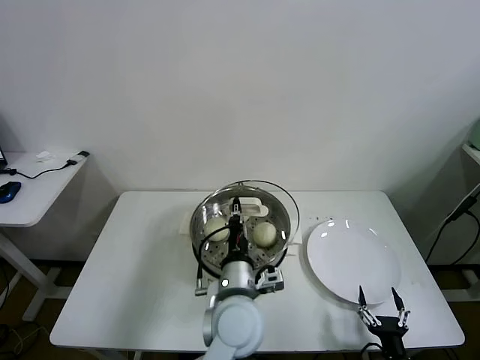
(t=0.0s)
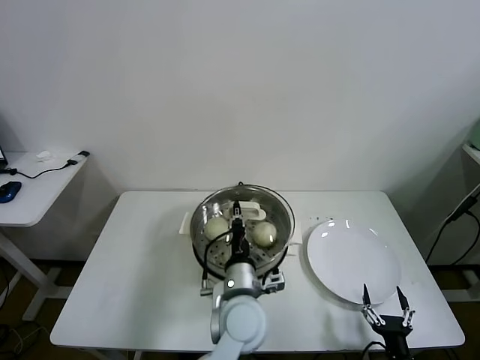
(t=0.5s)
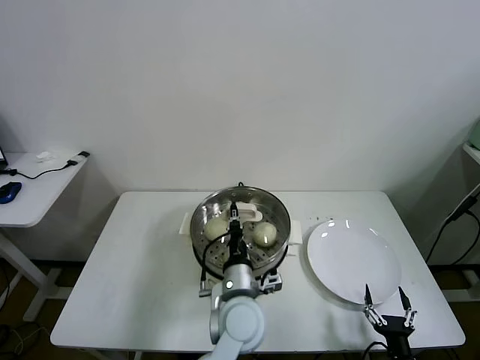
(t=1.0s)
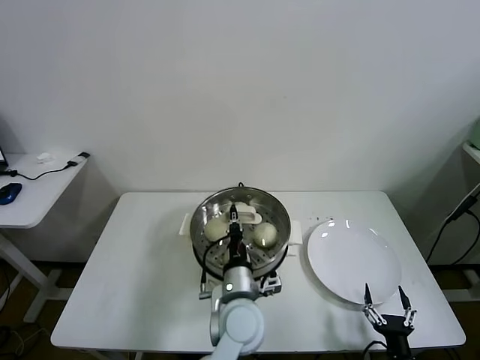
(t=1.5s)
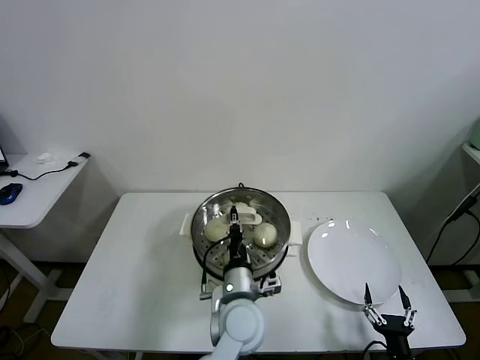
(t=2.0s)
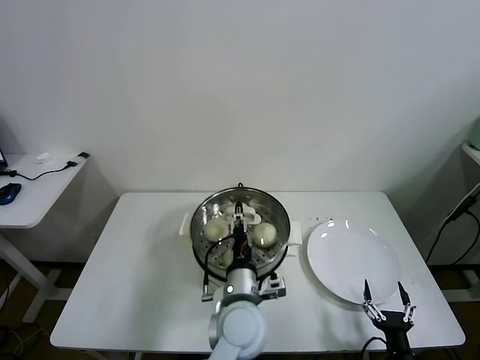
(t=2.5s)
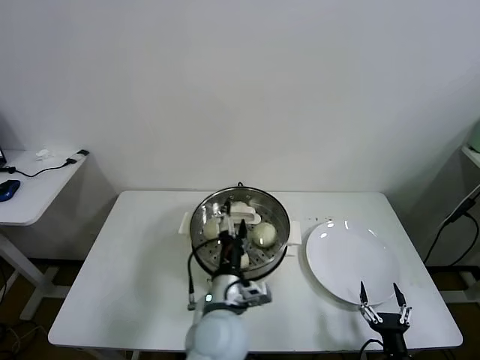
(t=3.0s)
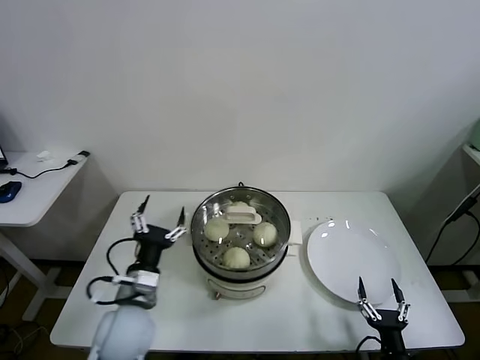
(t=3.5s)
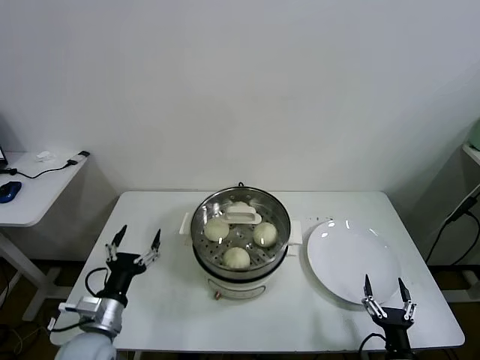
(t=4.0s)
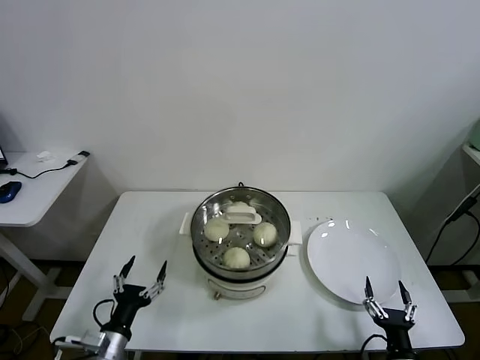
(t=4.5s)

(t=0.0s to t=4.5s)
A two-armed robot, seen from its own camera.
Task of the whole recording: take steamed baozi put them in steamer.
Step, t=0.0s - t=2.5s: Place the pot lid on the steamer with left gripper.
t=0.0s - t=2.0s: The left gripper moves downward, approximately 5 cm.
t=2.0s - t=4.5s: The left gripper shifts approximately 30 cm to the left, and opens its fingers.

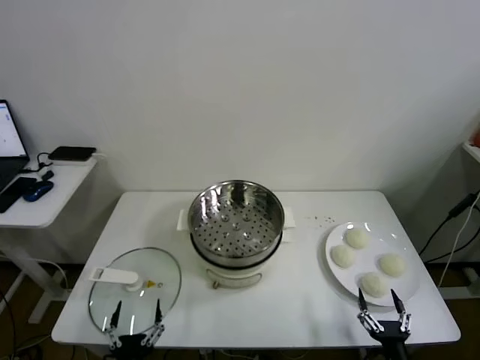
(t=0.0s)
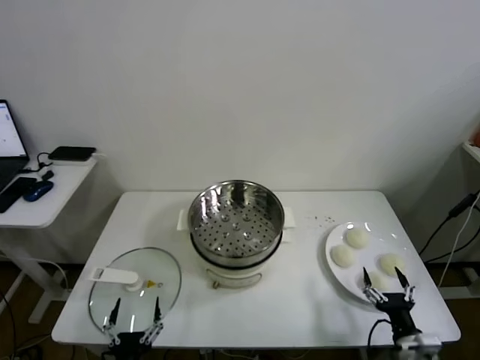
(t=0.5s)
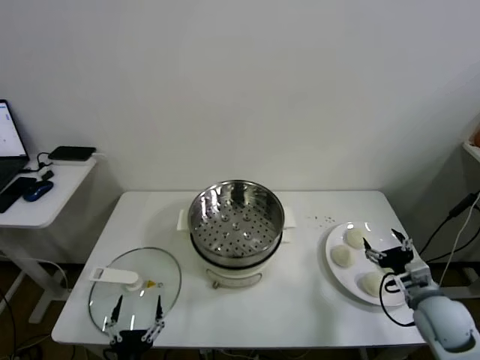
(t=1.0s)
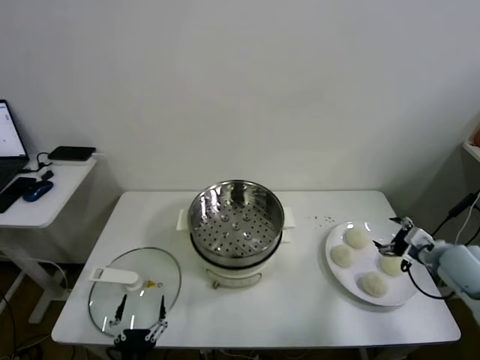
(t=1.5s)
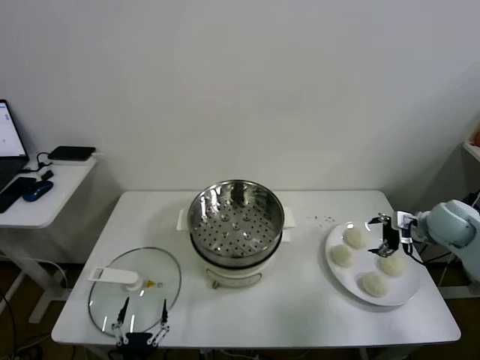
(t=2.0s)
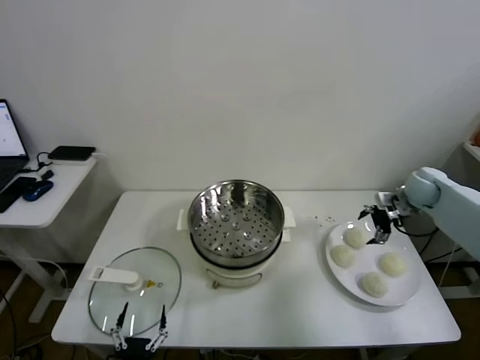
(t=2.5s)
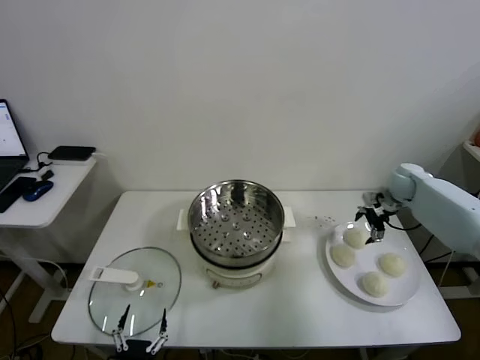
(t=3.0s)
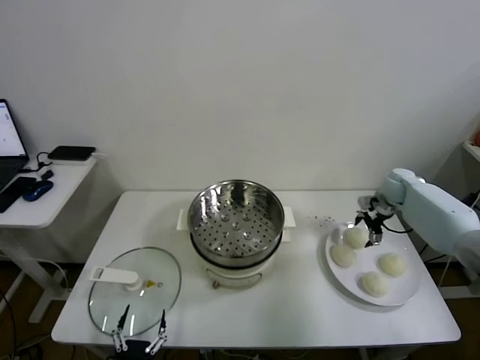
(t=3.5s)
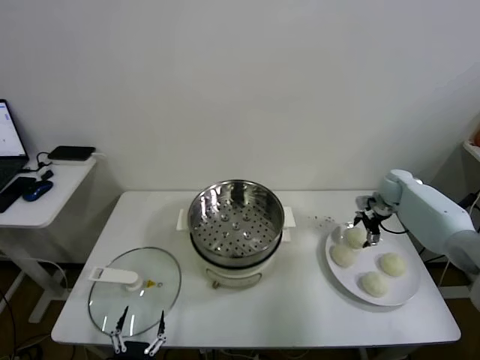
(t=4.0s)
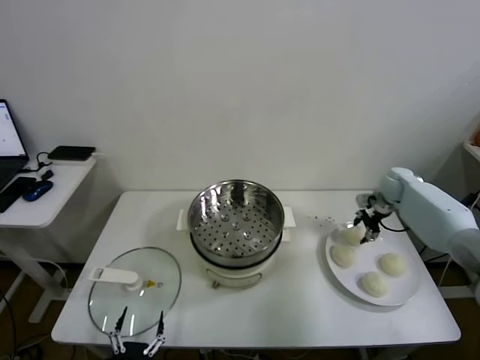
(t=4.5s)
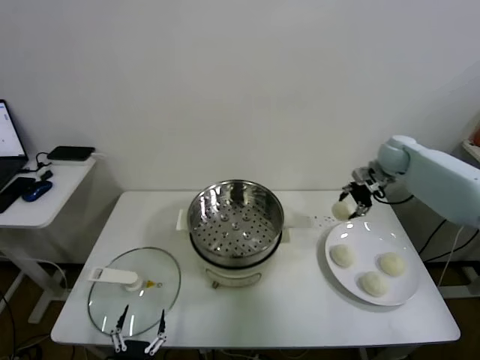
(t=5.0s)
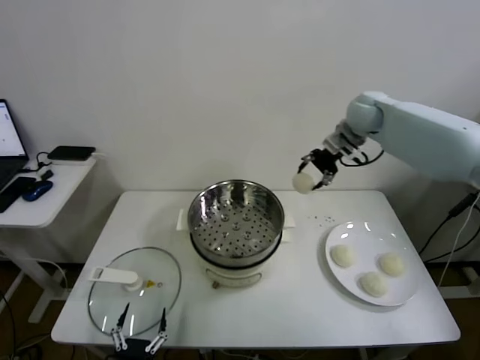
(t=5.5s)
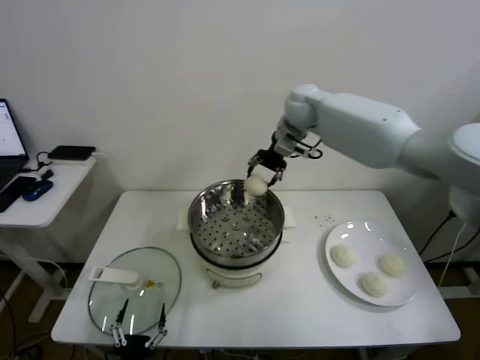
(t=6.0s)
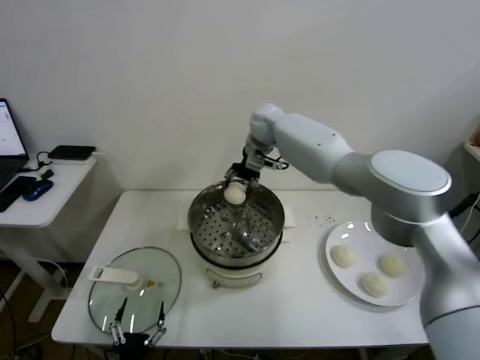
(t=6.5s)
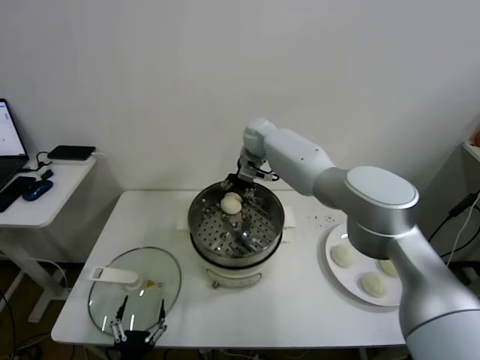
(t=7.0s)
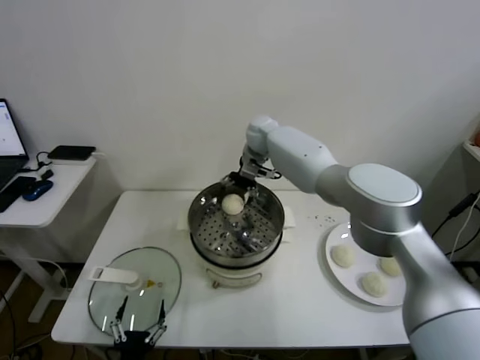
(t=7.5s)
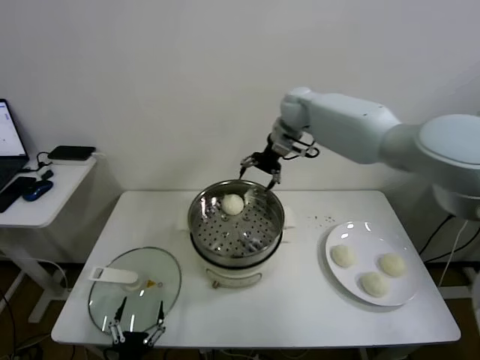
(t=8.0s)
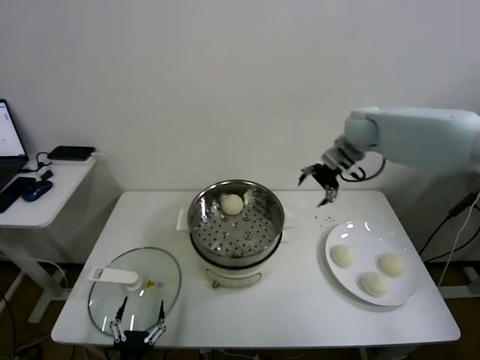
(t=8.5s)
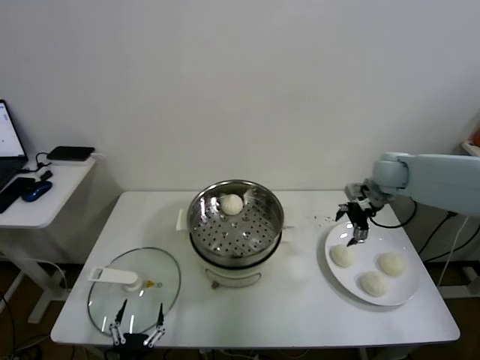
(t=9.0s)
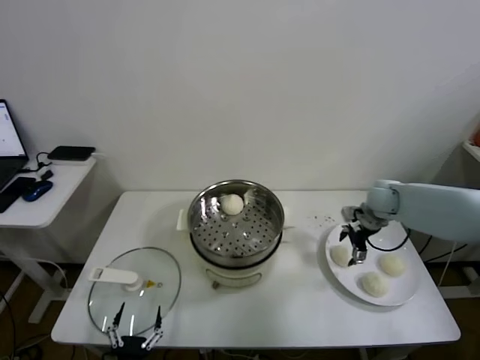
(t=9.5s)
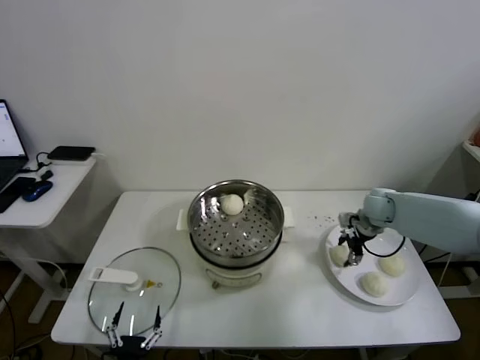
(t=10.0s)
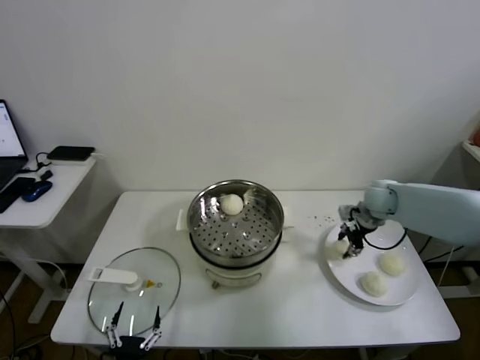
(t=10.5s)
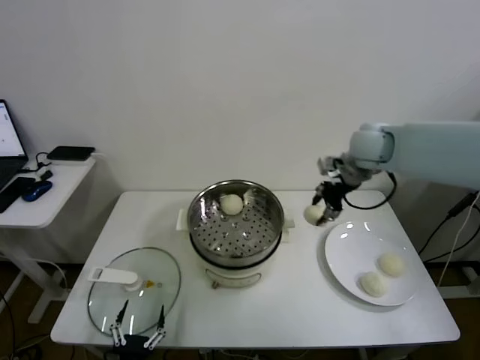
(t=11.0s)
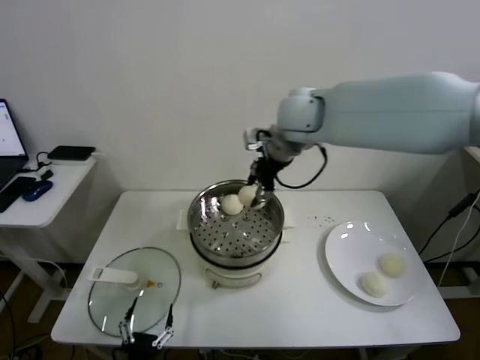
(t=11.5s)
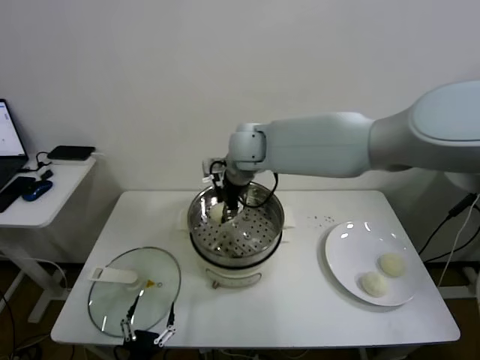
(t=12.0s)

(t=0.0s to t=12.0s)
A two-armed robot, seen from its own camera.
Task of the whole recording: take steamed baozi put them in steamer.
Step, t=0.0s - t=4.0s: Grasp the baozi in the plate with right gripper.
Step, t=4.5s - t=7.5s: Place the baozi on the steamer with right gripper.
Step, t=8.0s - t=10.0s: Grasp the baozi in the plate with right gripper.
t=2.0s - t=4.0s: The right gripper heads forward, covering approximately 15 cm.
t=4.0s - t=6.0s: The right gripper moves to the left and upward, about 35 cm, and closes.
t=6.0s - t=8.0s: The right gripper goes downward and returns, roughly 10 cm each way, and opens up.
t=8.0s - t=10.0s: The right gripper shifts some 35 cm to the right, downward and backward, and closes its fingers.
t=10.0s - t=12.0s: The right gripper goes roughly 40 cm to the left and upward, and closes up.

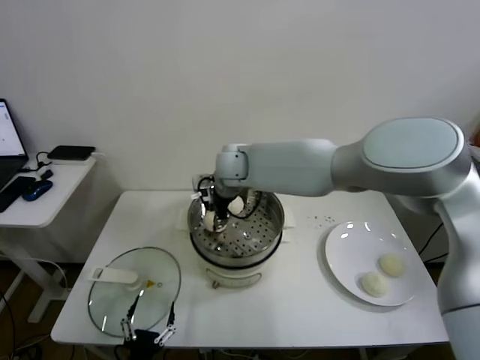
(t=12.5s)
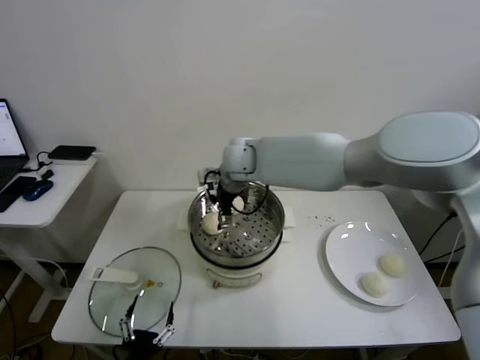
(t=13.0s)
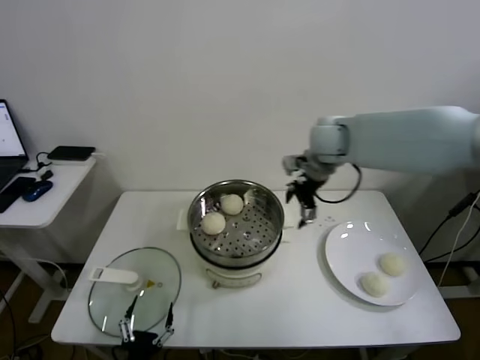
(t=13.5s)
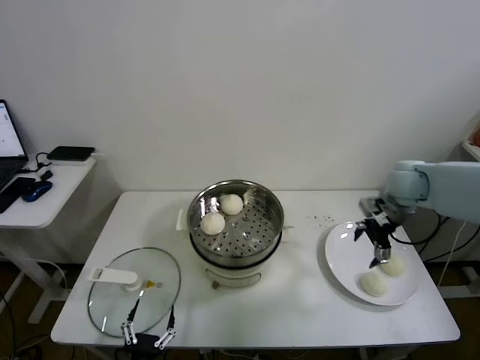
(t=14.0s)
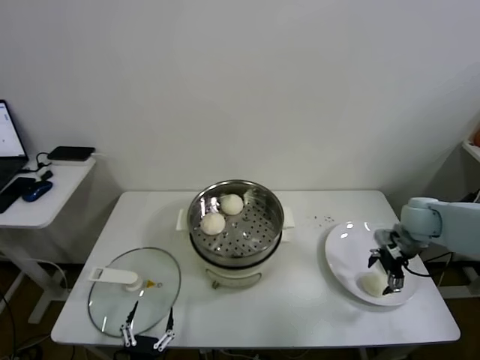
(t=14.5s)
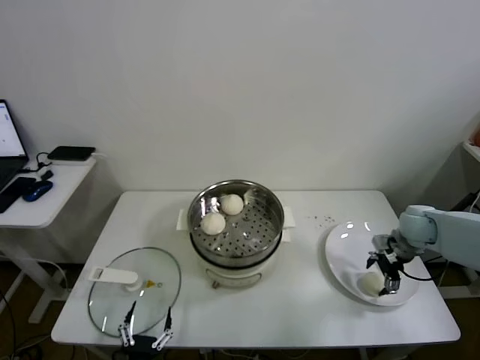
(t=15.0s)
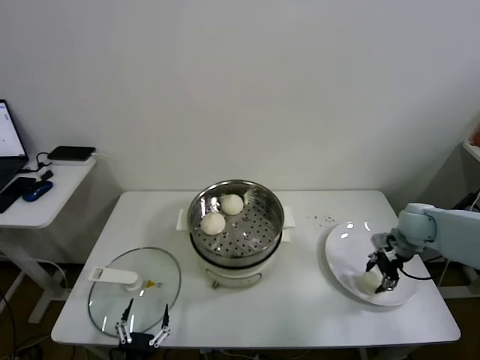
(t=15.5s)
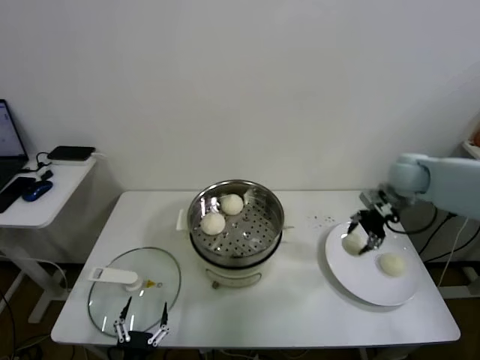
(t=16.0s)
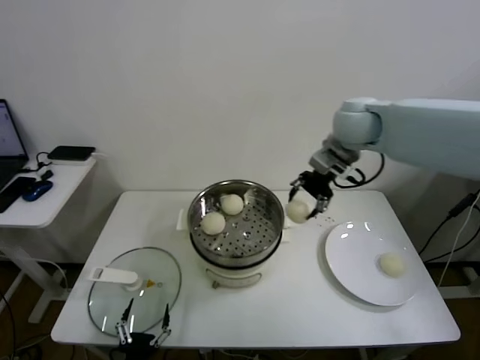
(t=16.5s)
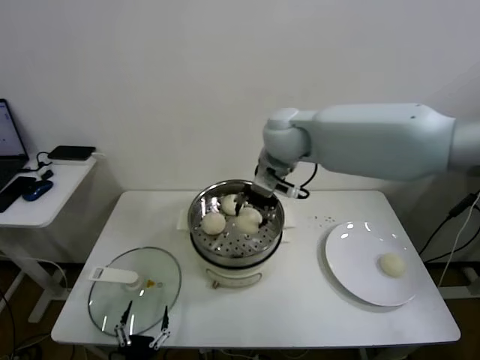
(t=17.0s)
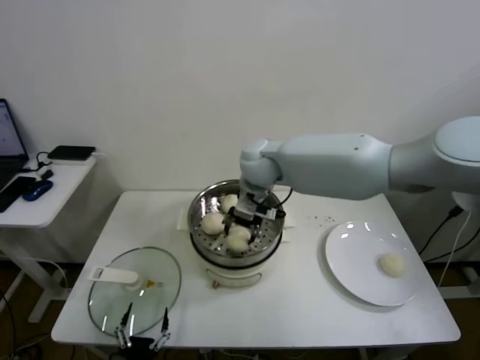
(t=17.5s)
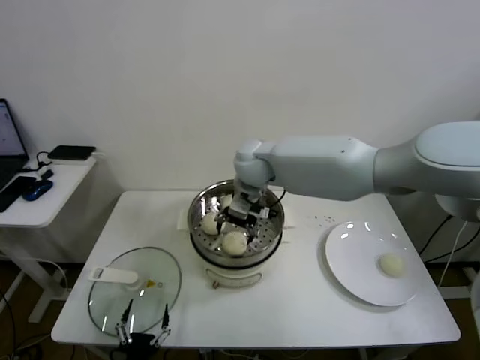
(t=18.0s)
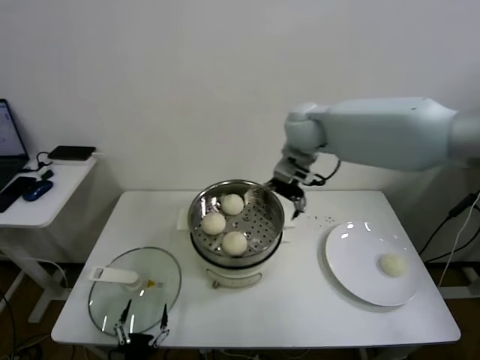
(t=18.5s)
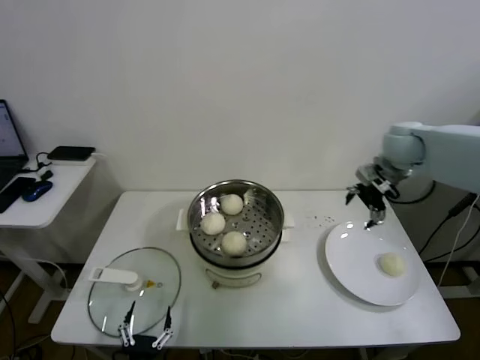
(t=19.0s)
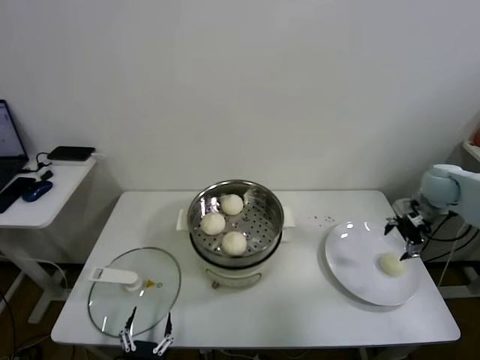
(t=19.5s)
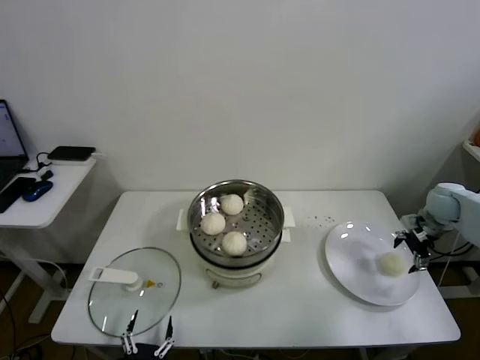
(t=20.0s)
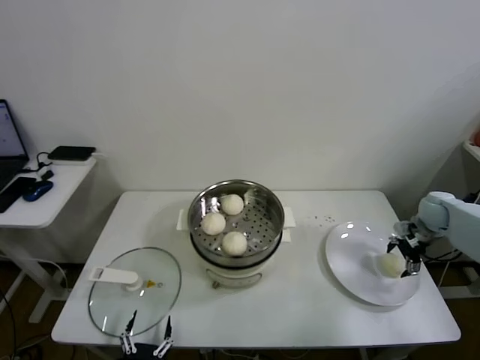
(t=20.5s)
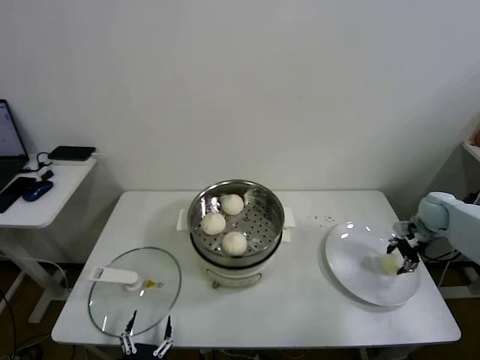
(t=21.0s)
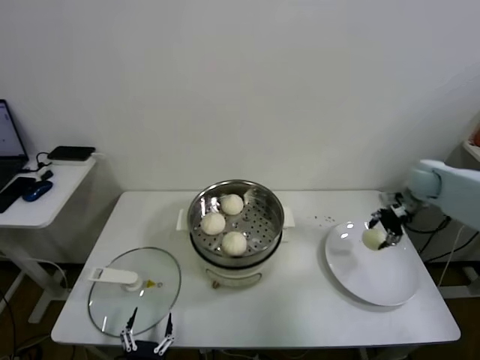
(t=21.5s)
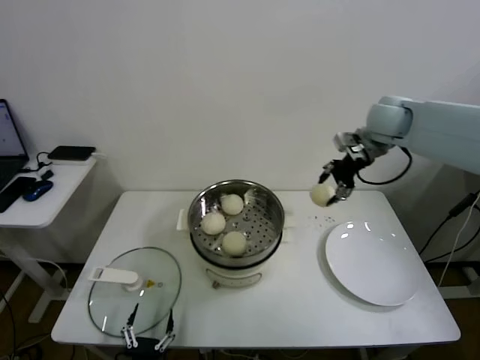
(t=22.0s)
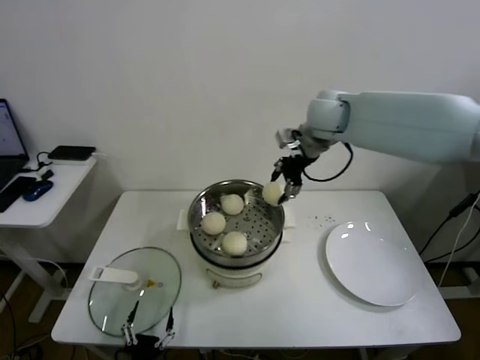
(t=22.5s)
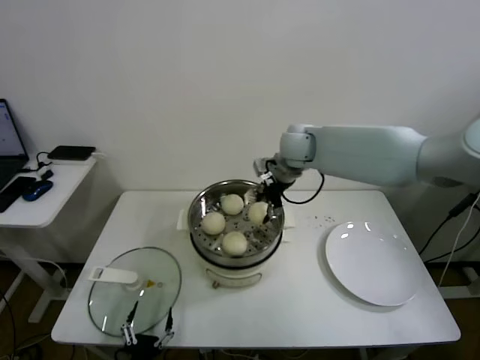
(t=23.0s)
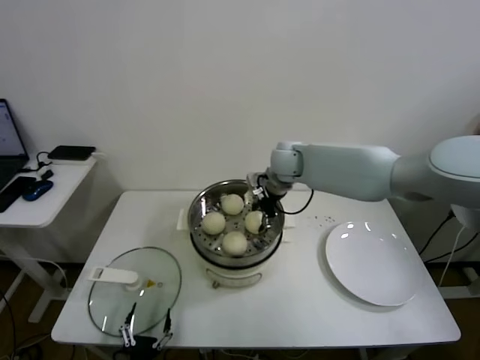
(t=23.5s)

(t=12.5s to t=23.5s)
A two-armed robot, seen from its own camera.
Task of the whole recording: take steamed baozi put them in steamer.
Step, t=13.0s - t=15.0s: Grasp the baozi in the plate with right gripper.
Step, t=15.5s - t=18.0s: Place the baozi on the steamer with right gripper.
Step, t=18.5s - t=21.0s: Grasp the baozi in the plate with right gripper.
t=12.5s - t=14.5s: The right gripper goes some 40 cm to the right, and opens.
t=14.5s - t=16.0s: The right gripper goes roughly 5 cm upward, and closes its fingers.
t=16.0s - t=18.0s: The right gripper moves to the left, about 35 cm, and opens up.
t=18.0s - t=20.0s: The right gripper goes some 50 cm to the right.
t=20.0s - t=21.5s: The right gripper shifts by about 5 cm, and closes up.
t=21.5s - t=23.5s: The right gripper goes about 35 cm to the left.
